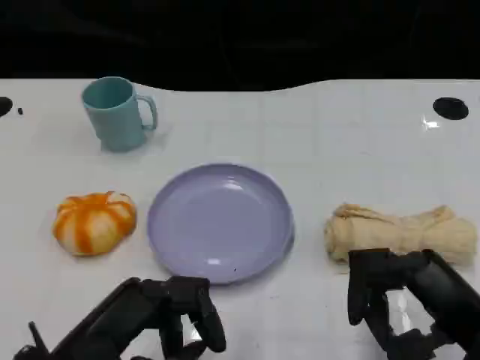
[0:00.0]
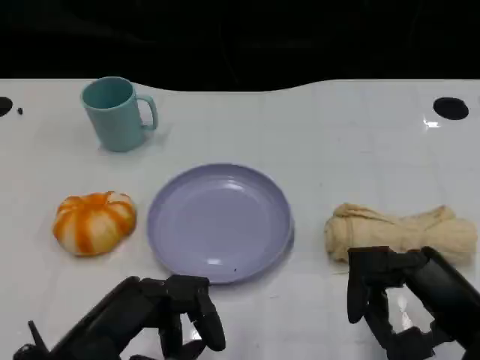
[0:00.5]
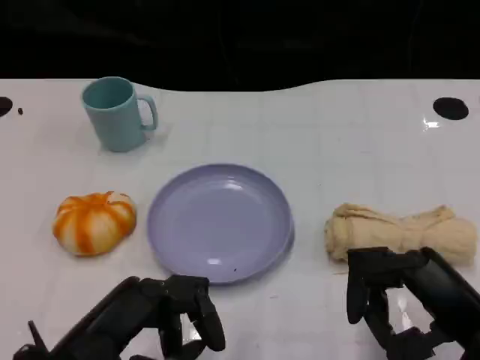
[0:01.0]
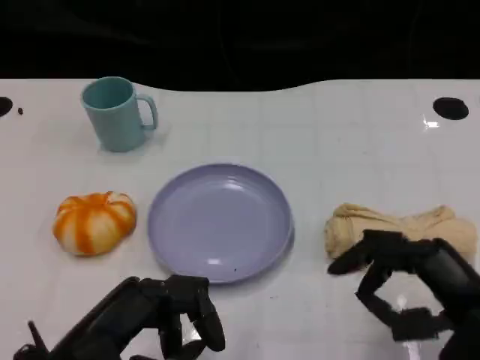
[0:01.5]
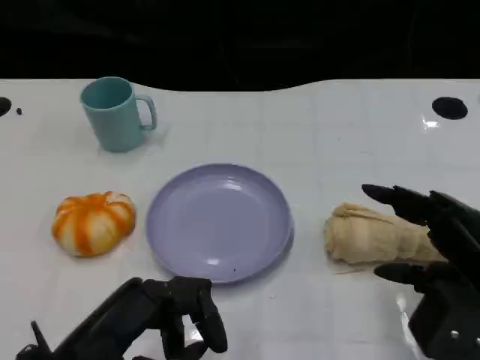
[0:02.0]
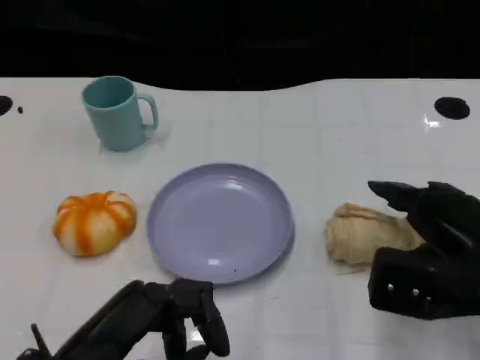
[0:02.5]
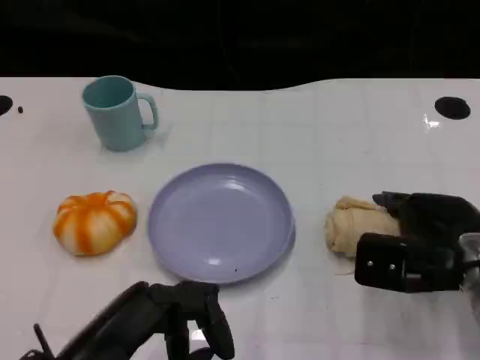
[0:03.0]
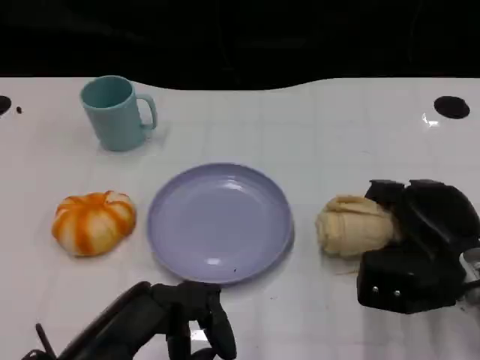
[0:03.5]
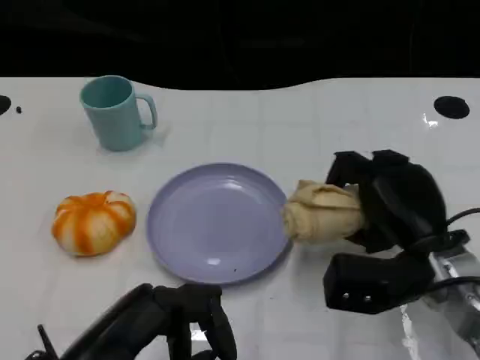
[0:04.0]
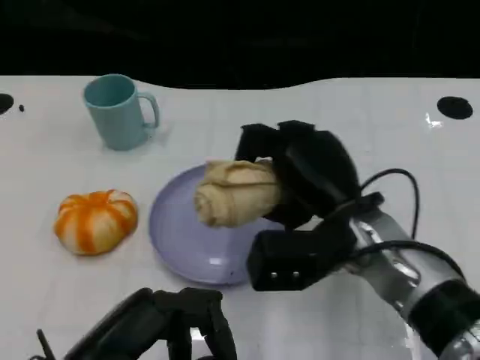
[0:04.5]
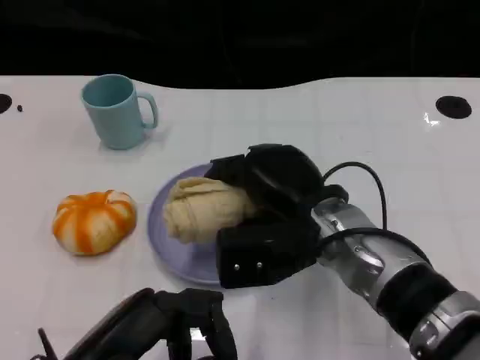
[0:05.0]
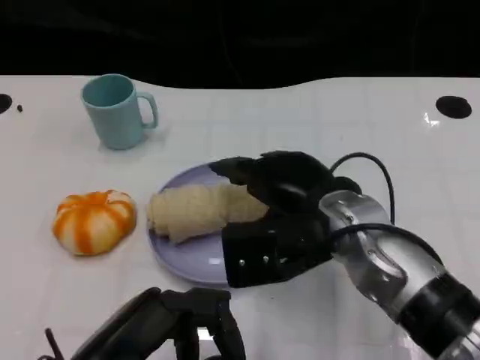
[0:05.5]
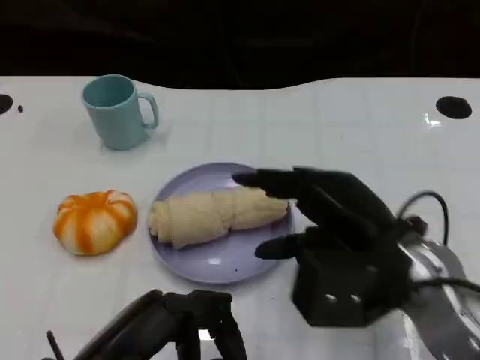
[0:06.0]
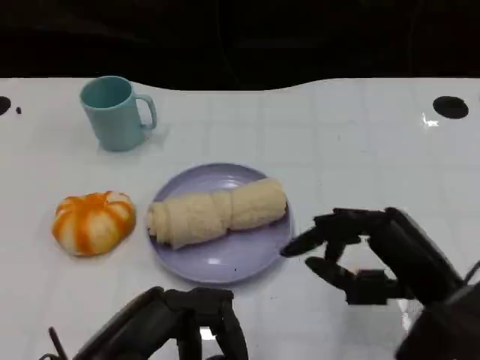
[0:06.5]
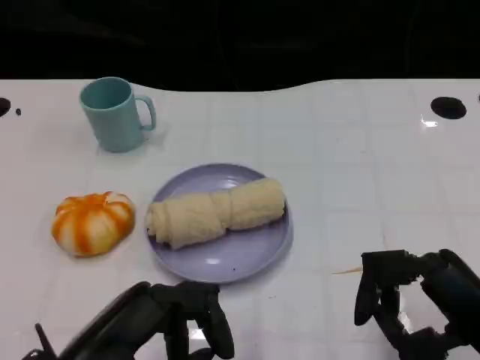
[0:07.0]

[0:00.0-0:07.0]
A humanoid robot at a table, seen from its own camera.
Task of the whole recording: Grasp the towel on the left side of the plate with the left hand and place it into the plate.
0:02.0 to 0:03.5: The right hand moves forward and downward, approximately 10 cm.
0:03.5 to 0:05.0: The right hand travels to the left by approximately 15 cm.
0:05.0 to 0:07.0: The right hand travels to the right and backward by approximately 20 cm.

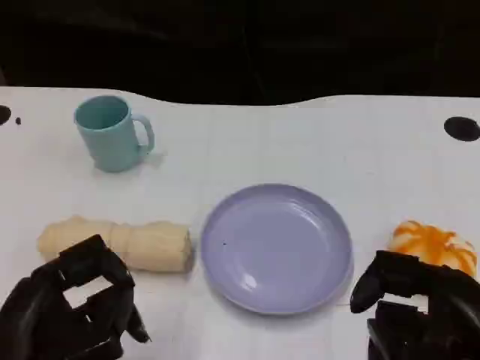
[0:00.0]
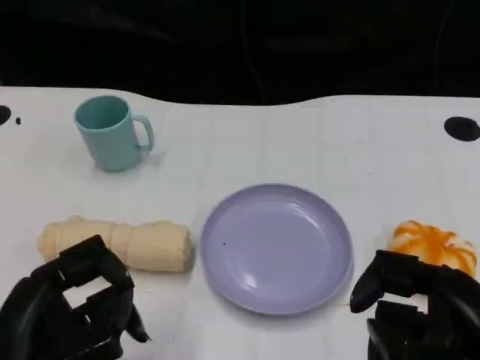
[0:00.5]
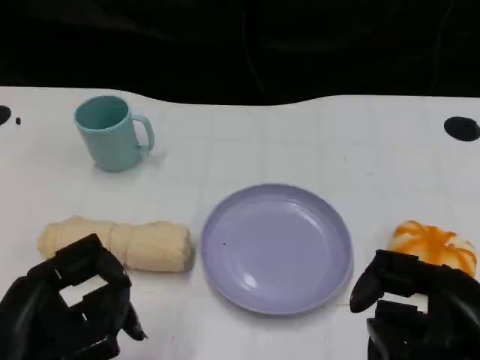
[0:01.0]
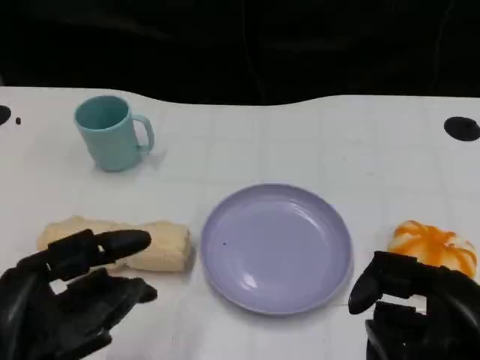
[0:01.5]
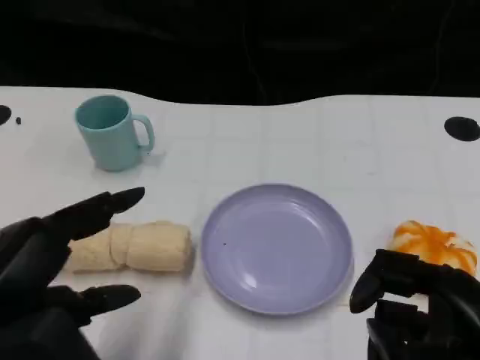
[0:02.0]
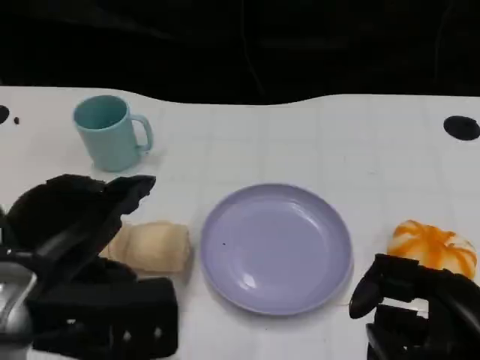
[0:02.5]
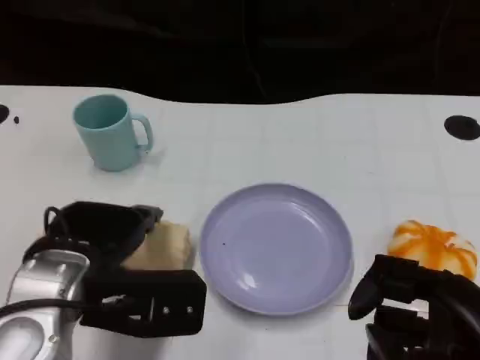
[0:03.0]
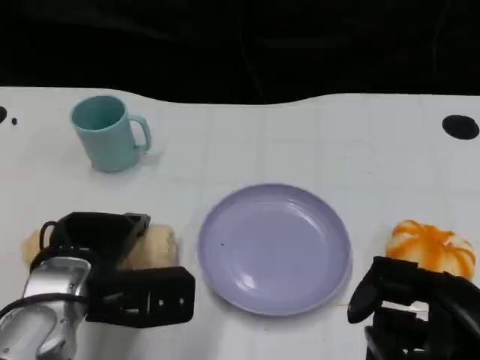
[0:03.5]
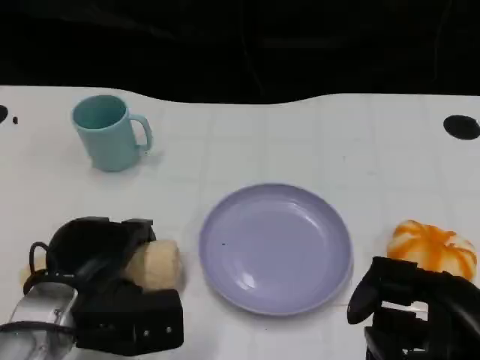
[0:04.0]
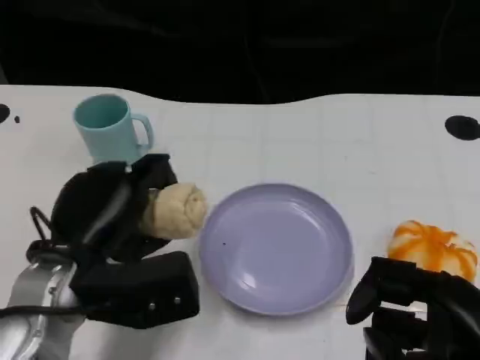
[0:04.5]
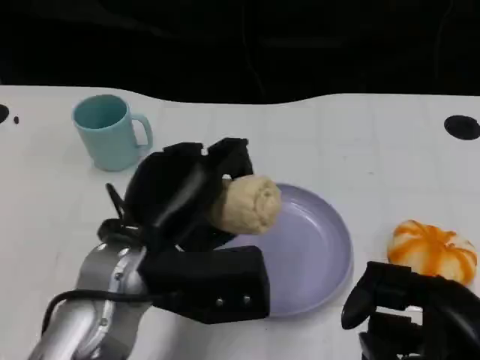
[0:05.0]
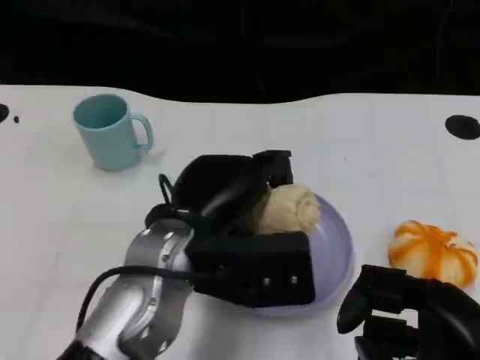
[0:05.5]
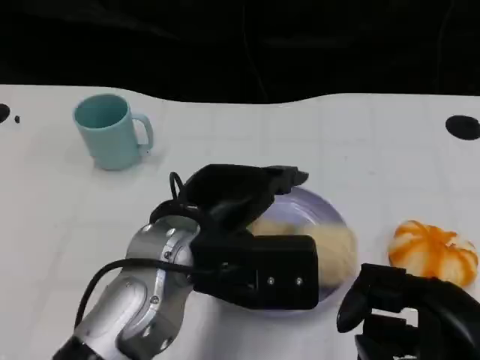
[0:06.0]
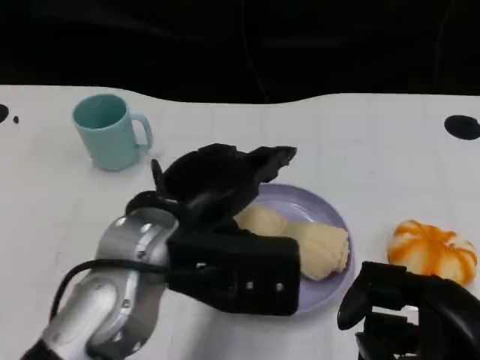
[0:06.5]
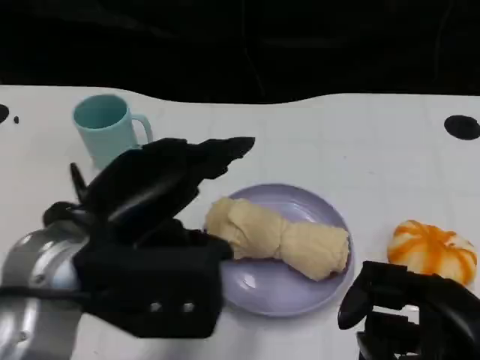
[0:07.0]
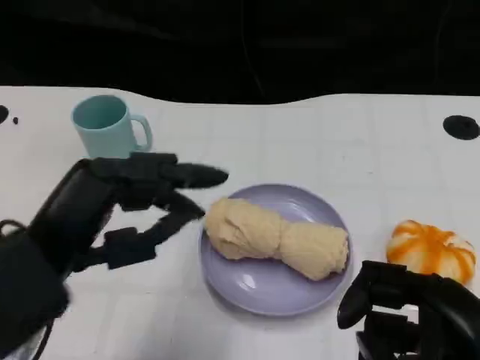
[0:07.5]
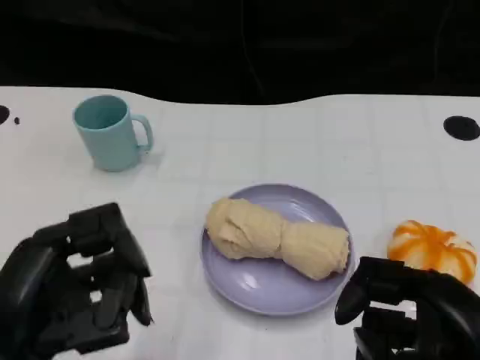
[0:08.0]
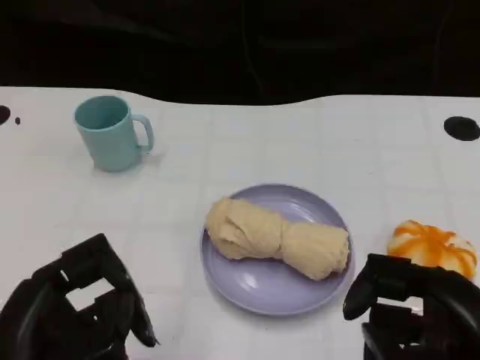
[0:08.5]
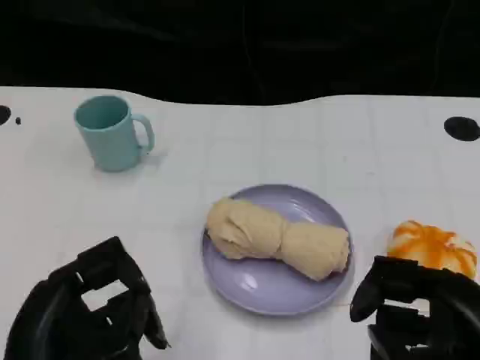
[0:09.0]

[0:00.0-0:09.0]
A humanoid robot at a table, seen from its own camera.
Task of the whole recording: Grasp the towel on the left side of the plate with the left hand and place it into the plate.
0:00.0 to 0:02.0: The left hand is displaced upward by about 5 cm.
0:02.0 to 0:04.5: The left hand goes roughly 15 cm forward, downward and to the right.
0:04.5 to 0:07.0: The left hand heads upward, covering some 5 cm, and moves about 10 cm to the right and comes back.
0:07.0 to 0:09.0: The left hand shifts approximately 10 cm backward and downward.
